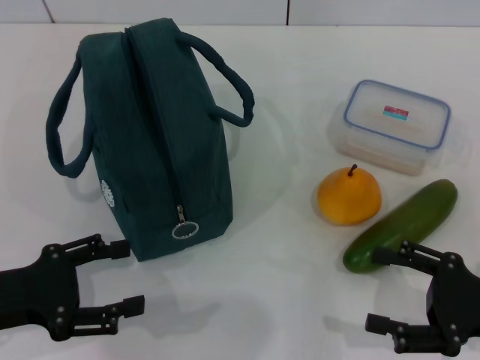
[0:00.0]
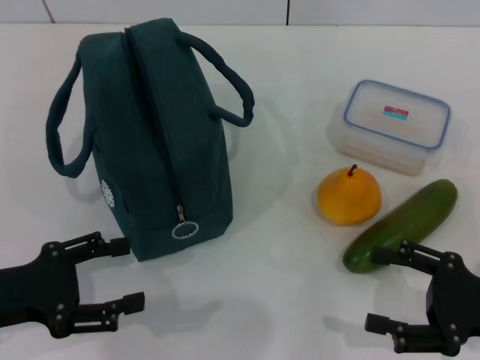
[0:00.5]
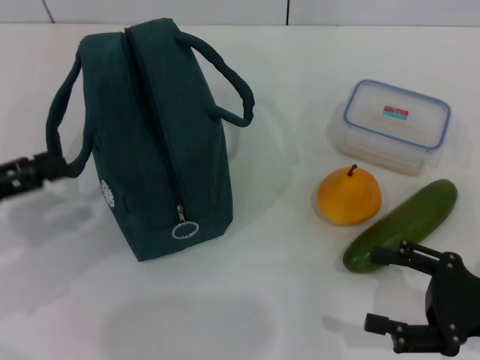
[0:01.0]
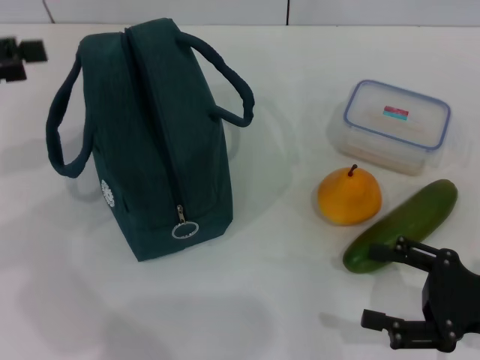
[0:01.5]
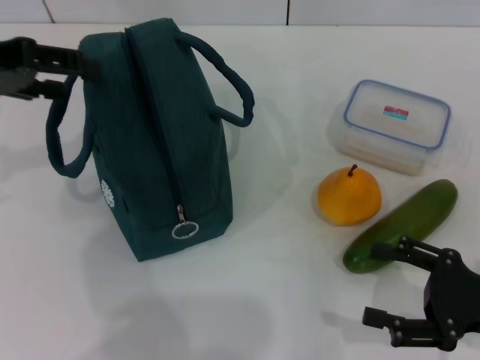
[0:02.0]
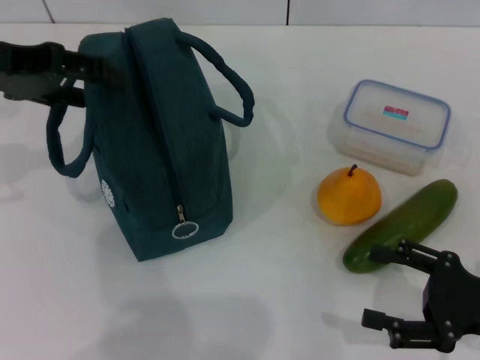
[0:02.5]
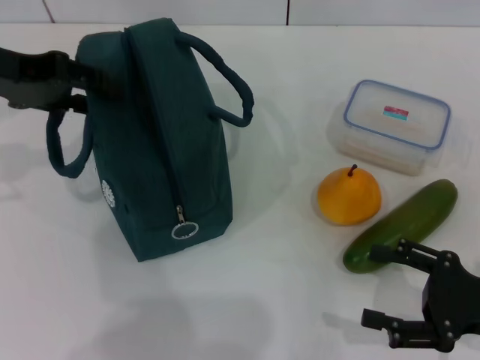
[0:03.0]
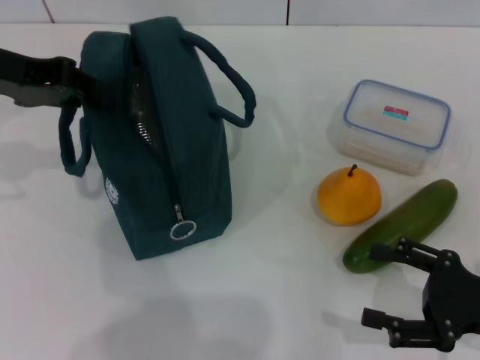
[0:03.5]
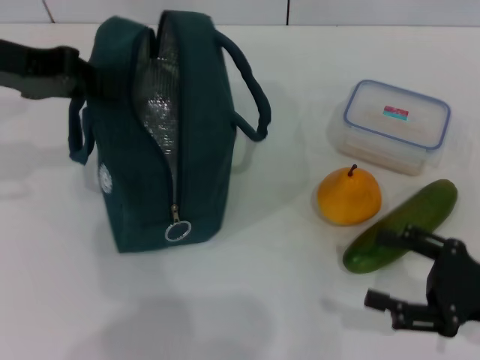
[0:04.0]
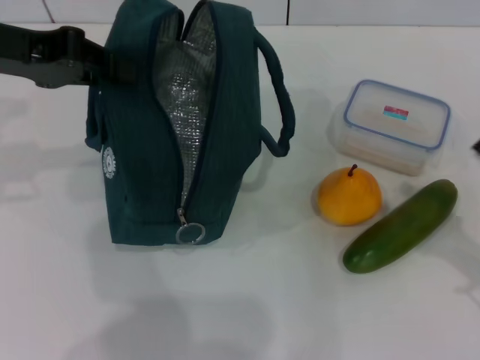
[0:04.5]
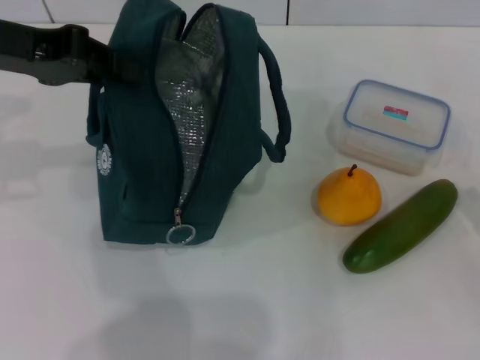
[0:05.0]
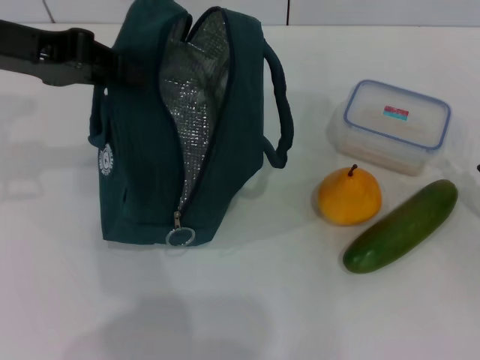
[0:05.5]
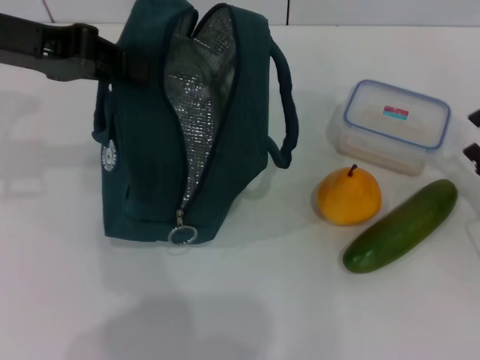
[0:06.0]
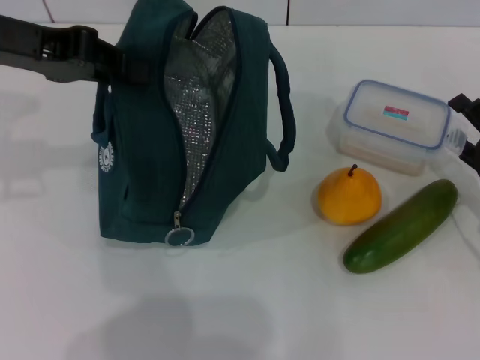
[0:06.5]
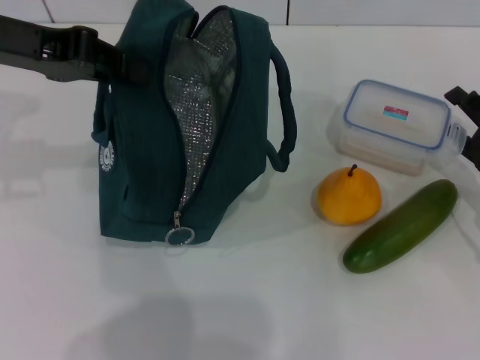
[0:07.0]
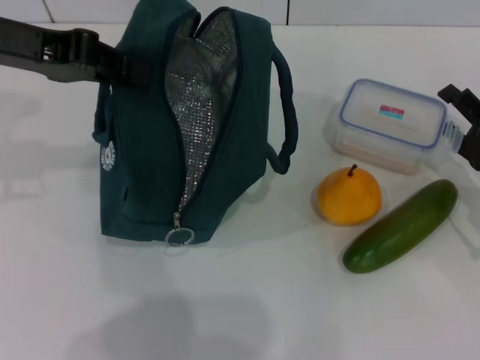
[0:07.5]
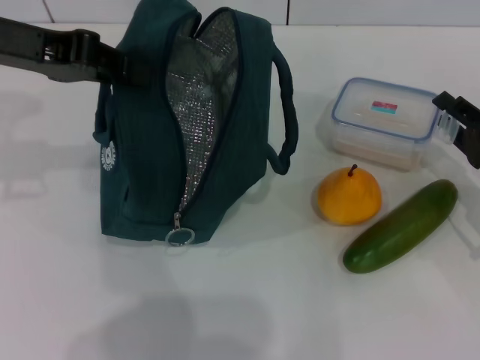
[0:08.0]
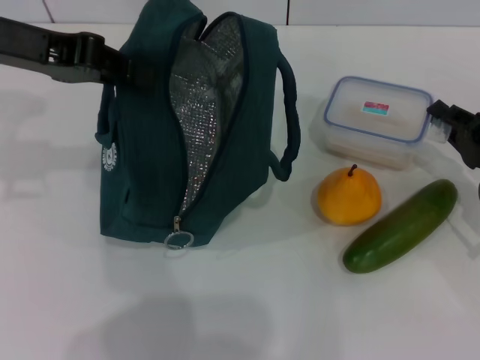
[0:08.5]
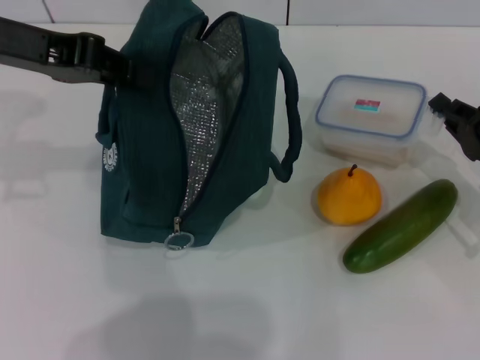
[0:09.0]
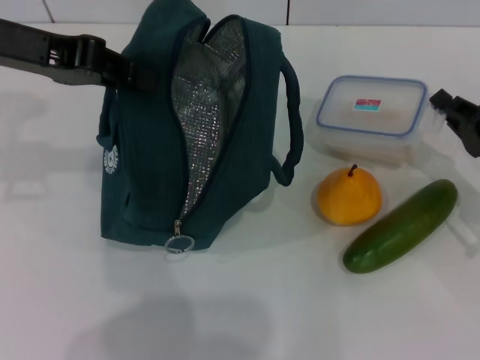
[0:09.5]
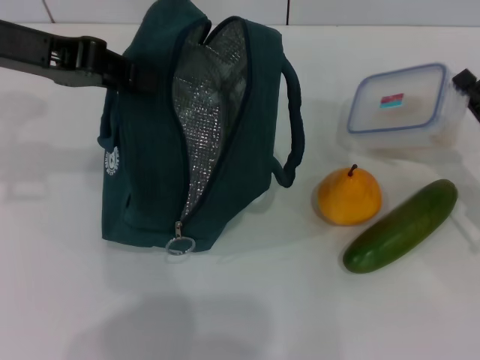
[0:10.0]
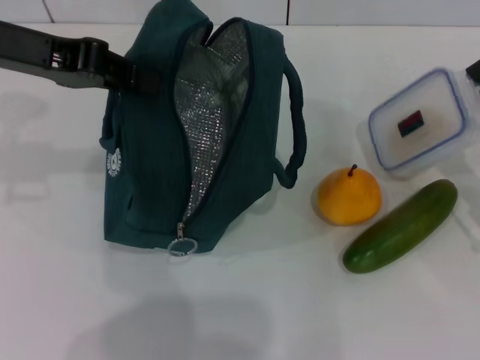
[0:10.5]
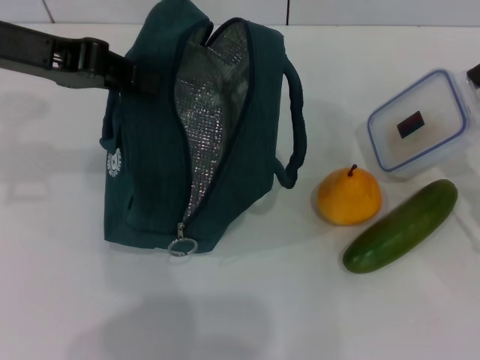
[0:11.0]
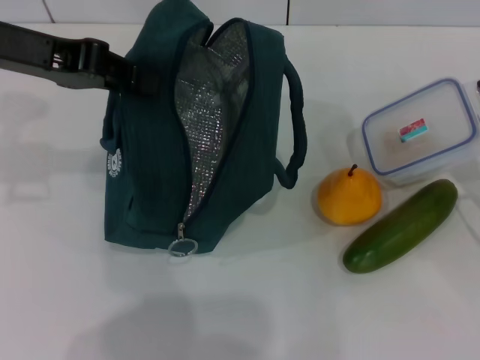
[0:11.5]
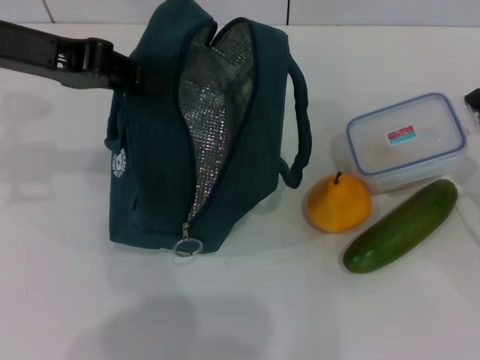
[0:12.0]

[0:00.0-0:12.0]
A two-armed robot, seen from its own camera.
Step, 0:00.0 to 0:03.5: Hold the lunch bag with your left hand.
0:00.0 to 0:02.0: The left gripper is displaced upward and forward by approximately 20 cm.
0:02.0 to 0:04.0: The left gripper closes.
0:04.0 to 0:06.0: The right gripper heads forward, covering approximately 5 cm.
0:06.0 to 0:08.0: The grippers make only small movements.
0:08.0 to 0:10.0: The right gripper closes.
0:10.0 to 0:12.0: The grippers stay close to where they were, moving slightly.

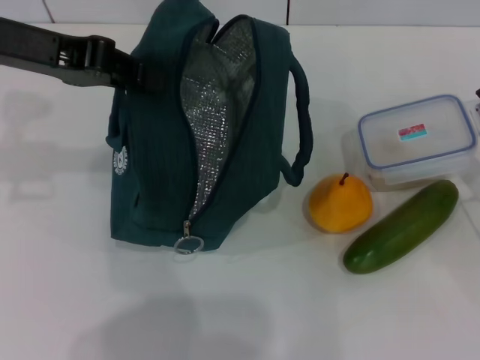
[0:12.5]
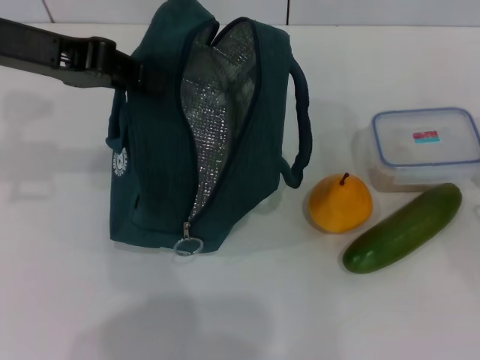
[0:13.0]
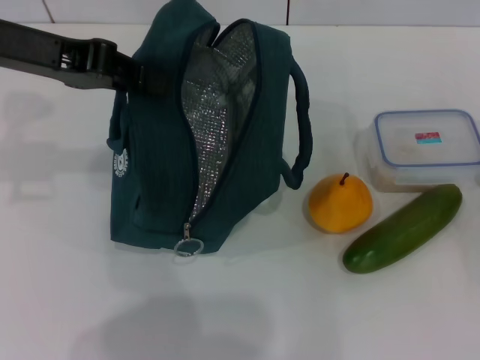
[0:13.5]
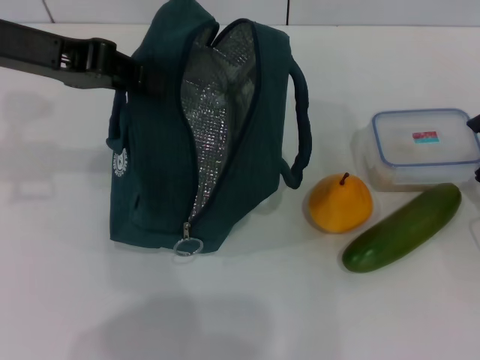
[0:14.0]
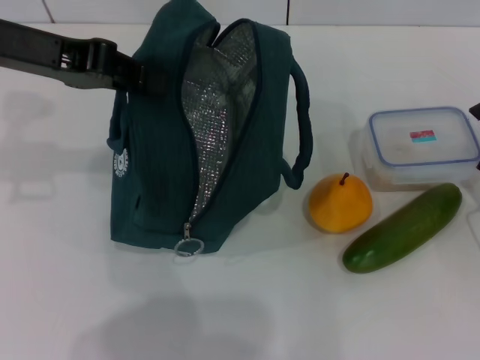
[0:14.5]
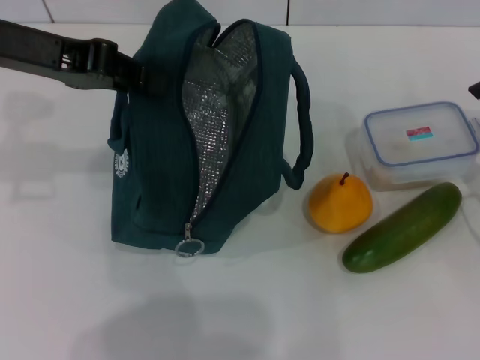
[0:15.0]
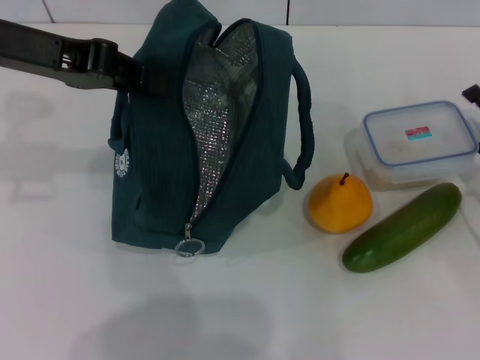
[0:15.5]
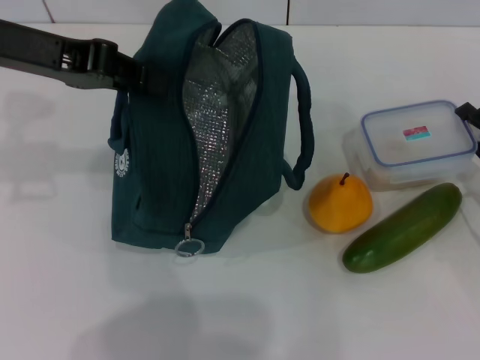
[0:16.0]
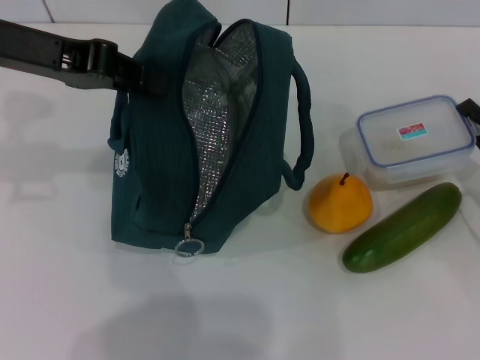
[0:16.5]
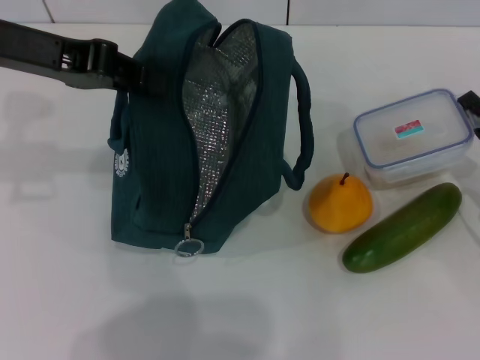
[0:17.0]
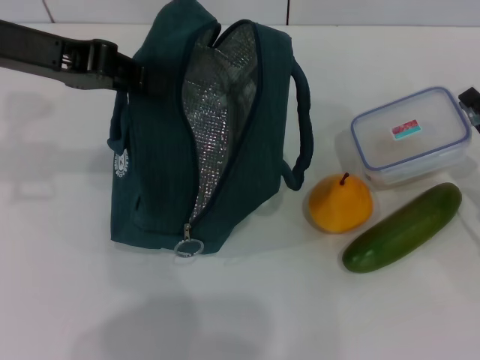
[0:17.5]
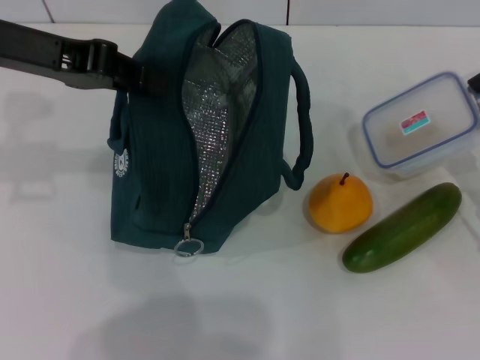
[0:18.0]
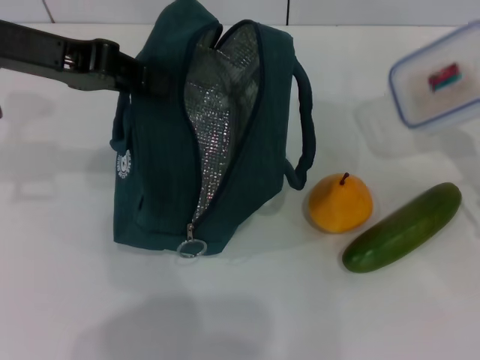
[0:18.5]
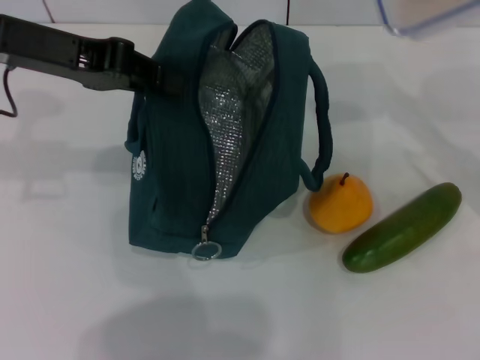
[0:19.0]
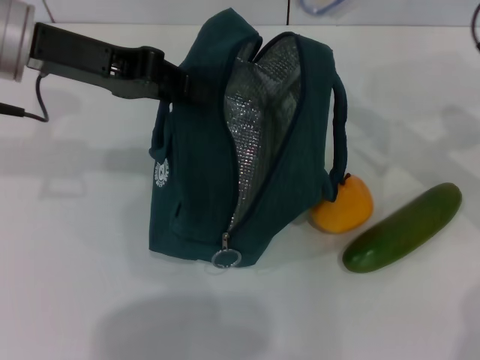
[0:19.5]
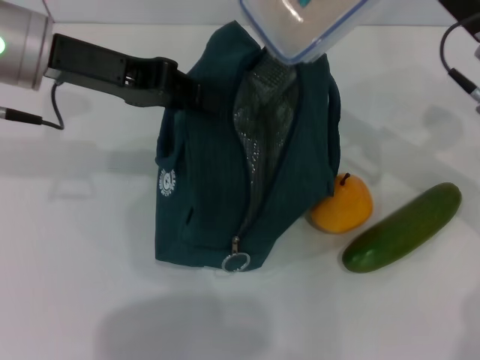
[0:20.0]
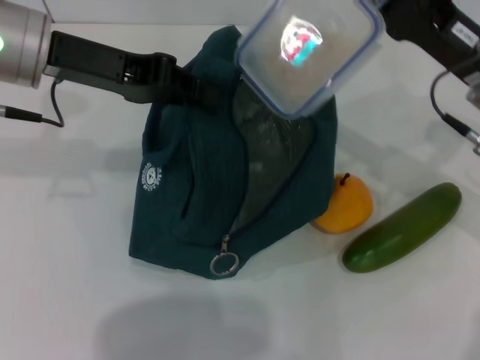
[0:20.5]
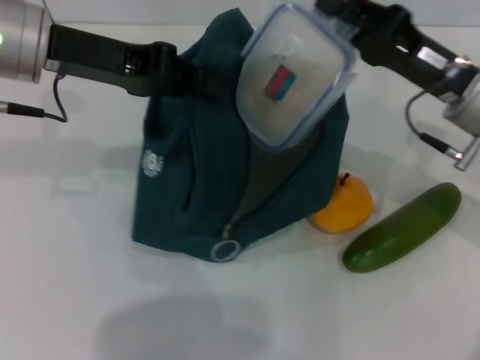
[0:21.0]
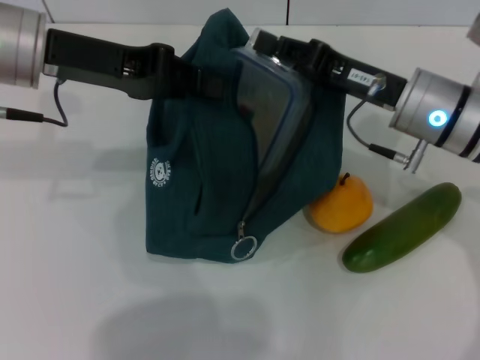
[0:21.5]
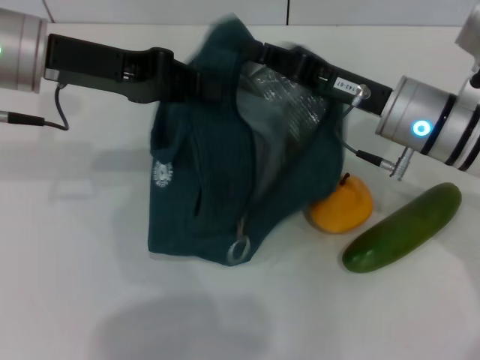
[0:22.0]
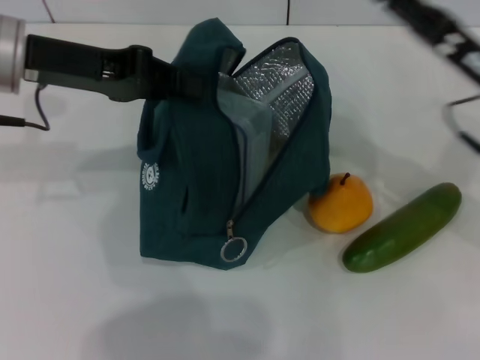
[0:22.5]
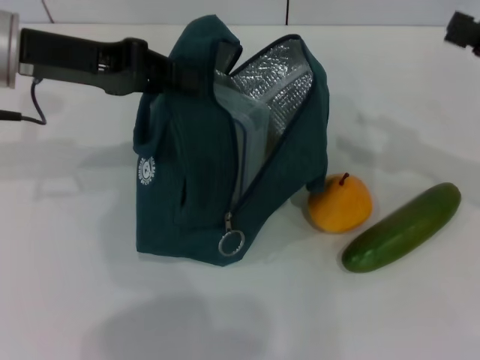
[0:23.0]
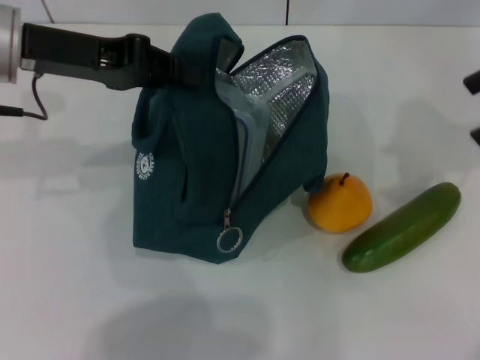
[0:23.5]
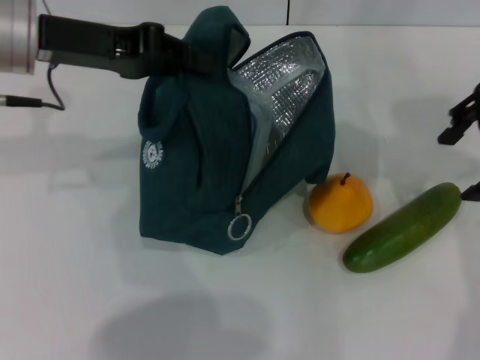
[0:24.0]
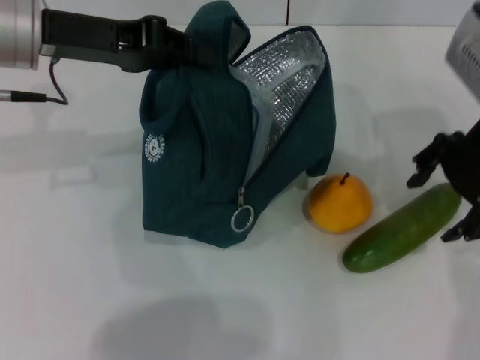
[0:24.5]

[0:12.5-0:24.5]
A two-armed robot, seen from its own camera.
Step, 0:12.5 to 0:17.0: Pick up the lunch box with your right hand.
Step, 0:17.5 to 0:22.0: Place the lunch box into the lunch bag with your right hand.
0:12.5 to 0:14.5: The right gripper opens its fingers.
0:14.5 to 0:16.5: The right gripper closes.
0:18.5 to 0:20.5: The right gripper goes some 10 cm to the left and upward.
0:20.5 to 0:22.5: The right gripper goes to the left and returns, roughly 5 cm each way, and opens up.
0:22.5 to 0:24.5: The right gripper shifts about 10 cm upward.

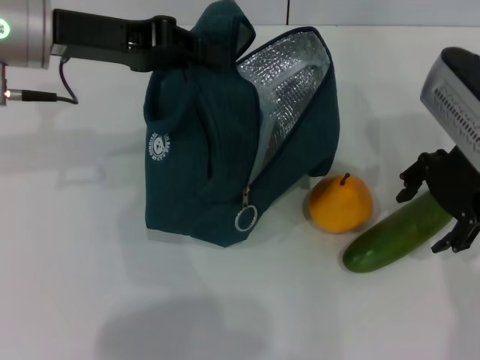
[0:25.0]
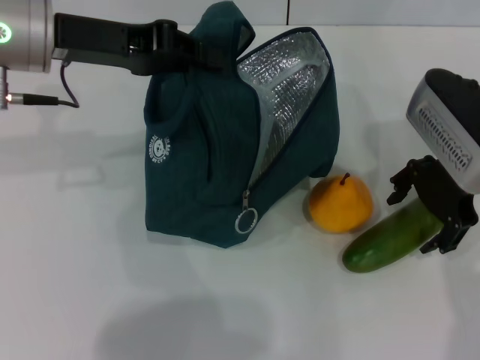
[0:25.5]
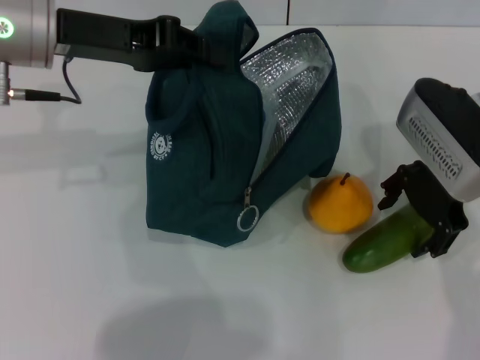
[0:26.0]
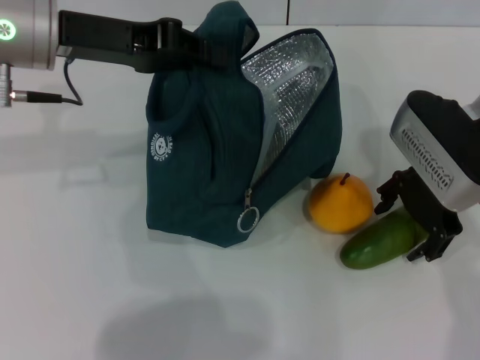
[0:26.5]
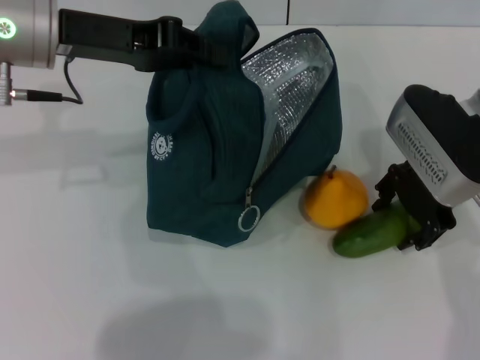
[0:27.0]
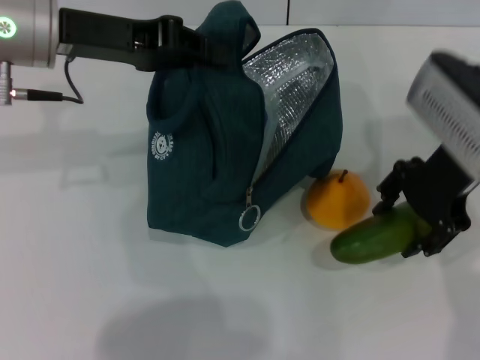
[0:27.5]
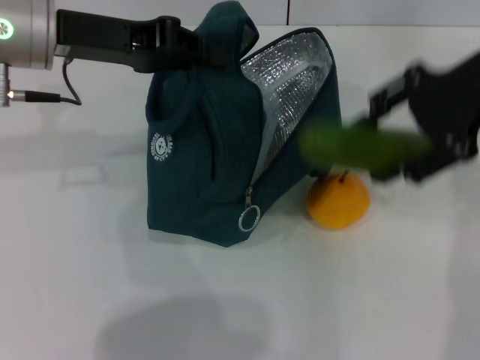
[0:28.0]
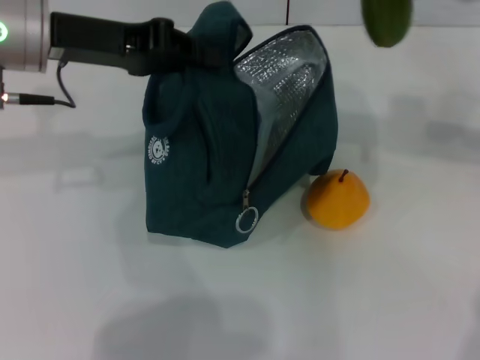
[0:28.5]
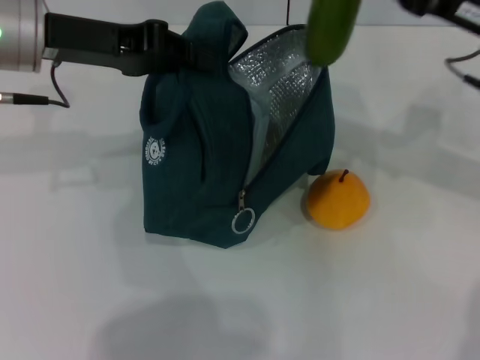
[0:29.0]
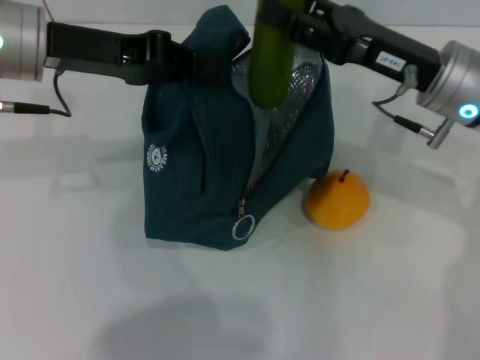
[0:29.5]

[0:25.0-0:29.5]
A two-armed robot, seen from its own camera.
0:25.0 to 0:27.0: There are only small adjustments of the grippers.
0:27.0 to 0:29.5: The right gripper travels upward and back again, about 10 cm each way.
